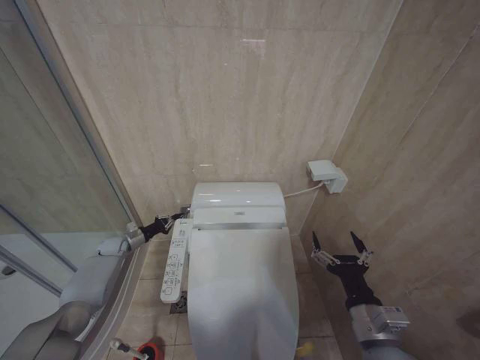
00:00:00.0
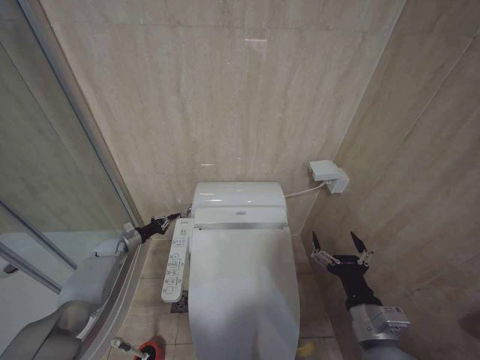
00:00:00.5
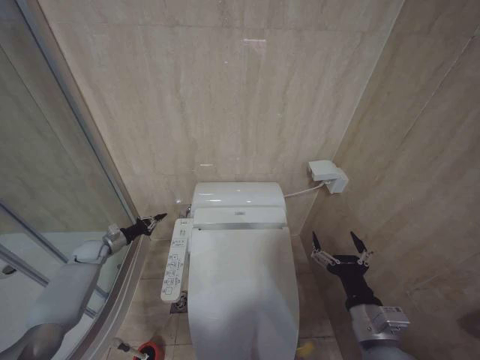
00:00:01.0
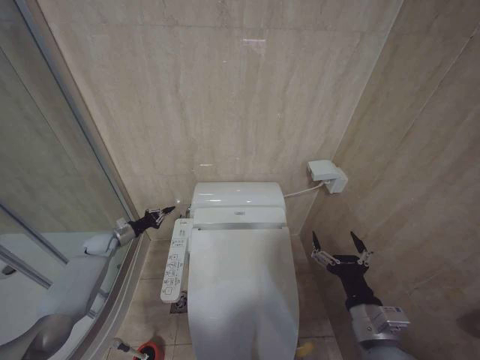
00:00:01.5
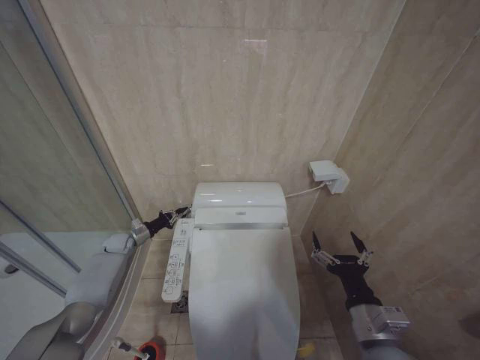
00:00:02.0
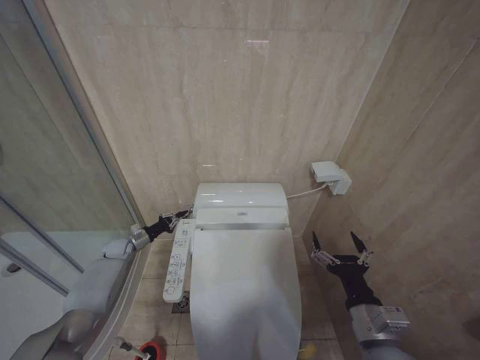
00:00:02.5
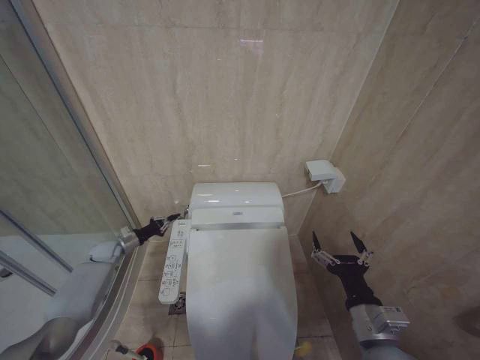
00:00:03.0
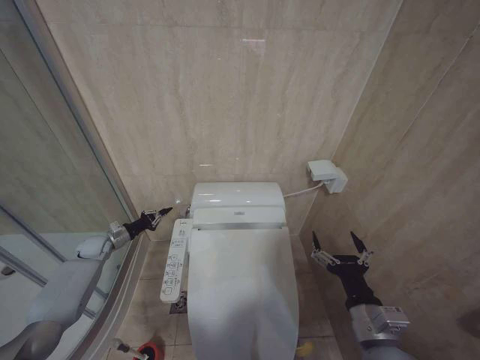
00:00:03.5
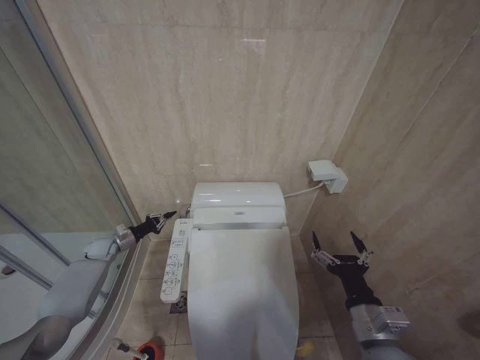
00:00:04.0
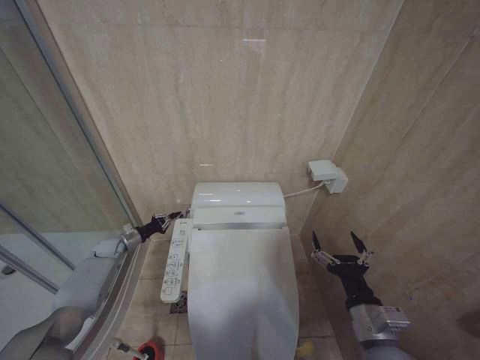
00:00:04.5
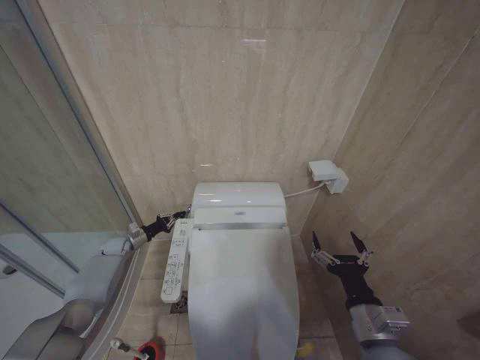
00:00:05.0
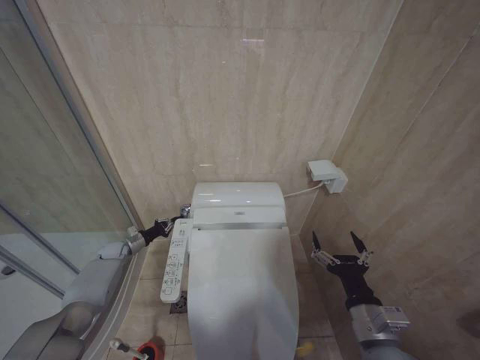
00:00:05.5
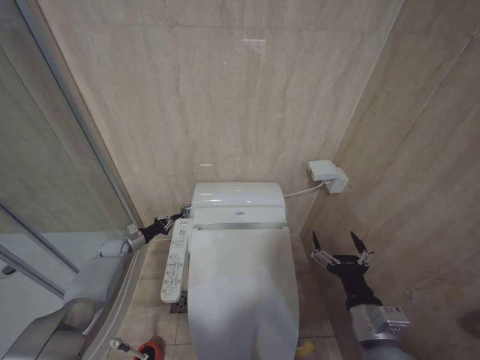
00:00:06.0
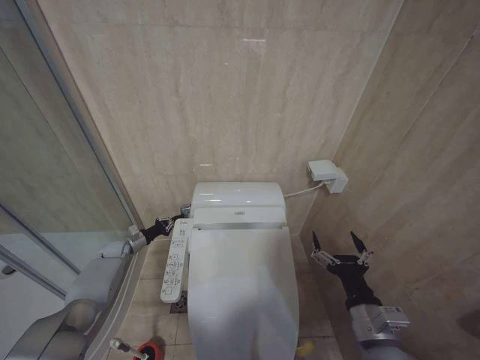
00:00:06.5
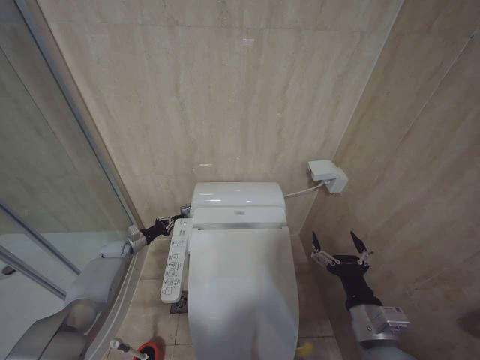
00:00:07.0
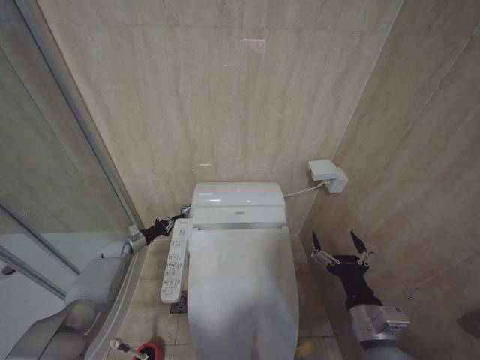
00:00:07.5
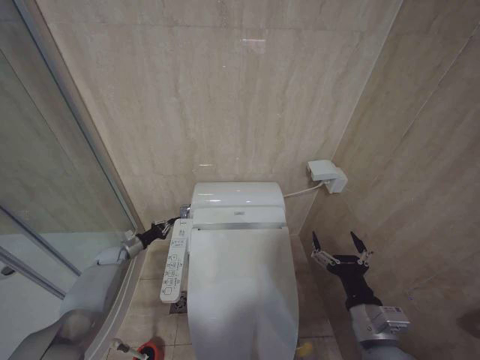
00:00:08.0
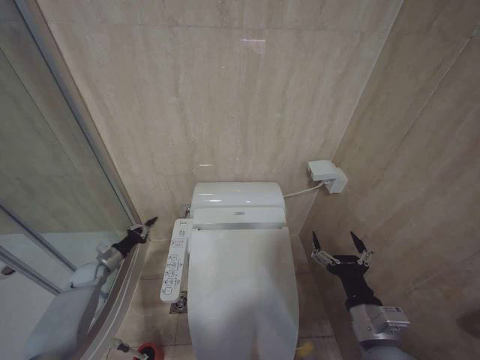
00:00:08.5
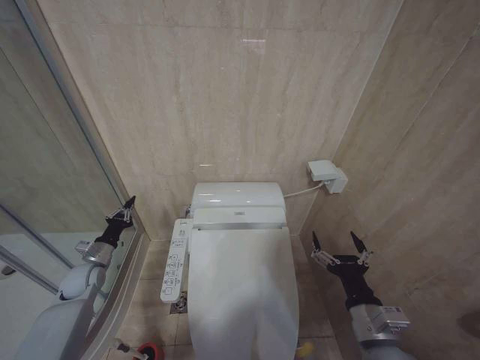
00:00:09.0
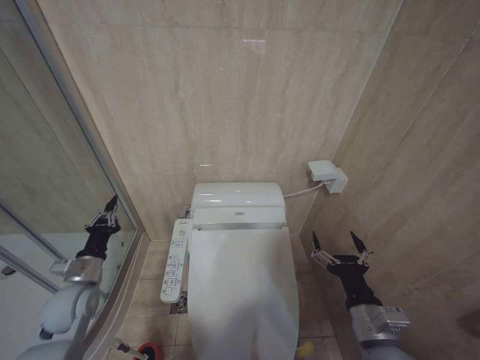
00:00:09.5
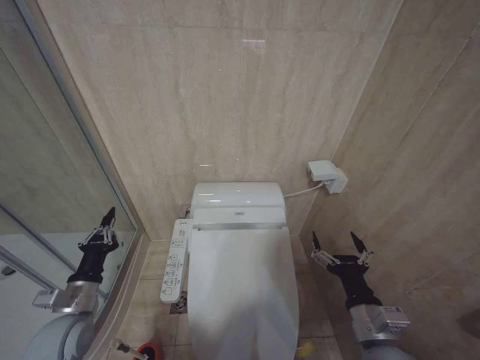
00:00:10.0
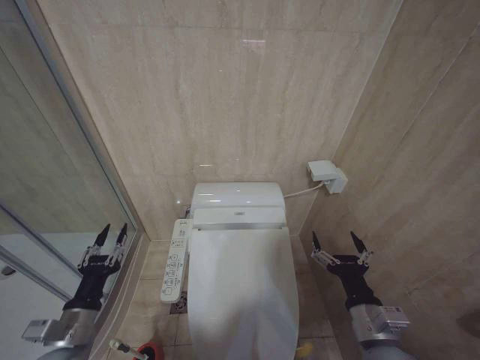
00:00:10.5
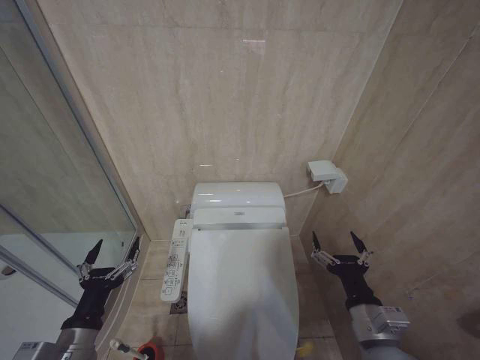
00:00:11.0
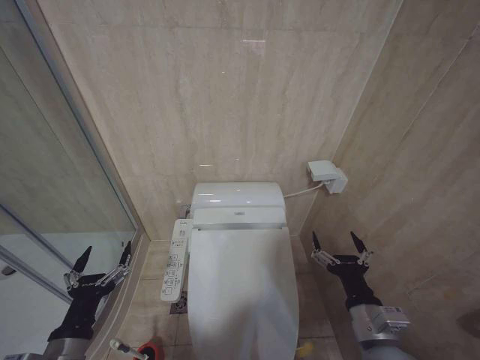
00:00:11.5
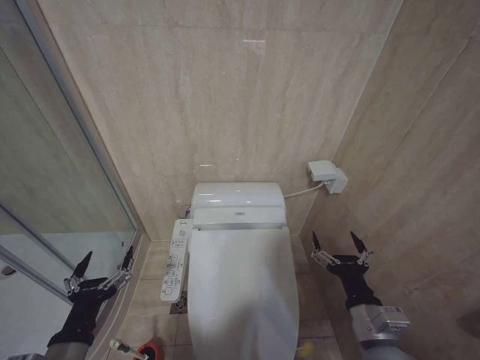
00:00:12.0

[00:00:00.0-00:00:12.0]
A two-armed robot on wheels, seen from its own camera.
Task of the whole recording: Open the toilet lid, clean the toilet bowl with a toilet brush, close the toilet lid, and flush.
00:00:02.0 to 00:00:04.0: The left gripper changes place by some 5 cm.
00:00:04.0 to 00:00:06.0: The left gripper shifts by about 5 cm.
00:00:06.0 to 00:00:08.0: The grippers make only small movements.
00:00:08.0 to 00:00:10.0: The left gripper shifts roughly 30 cm backward and upward.
00:00:10.0 to 00:00:12.0: The left gripper heads backward and to the right, covering roughly 15 cm, and opens its fingers.

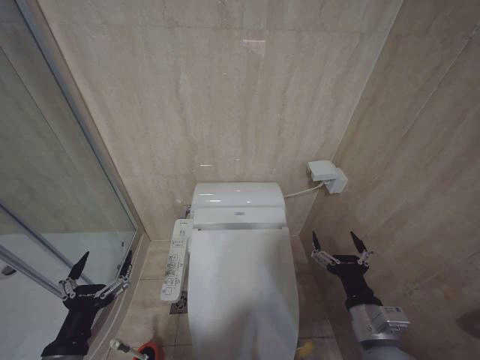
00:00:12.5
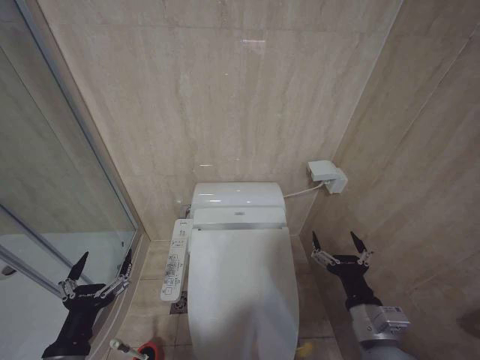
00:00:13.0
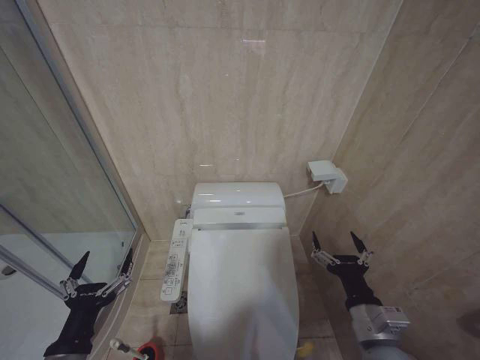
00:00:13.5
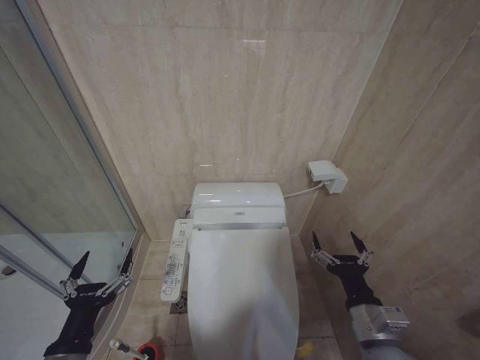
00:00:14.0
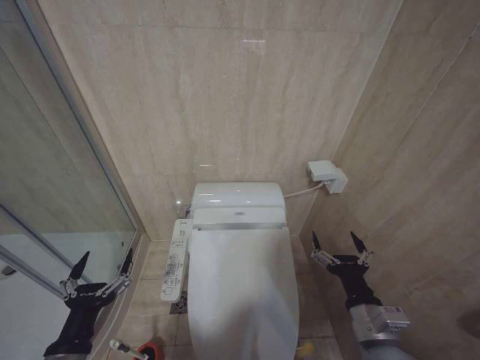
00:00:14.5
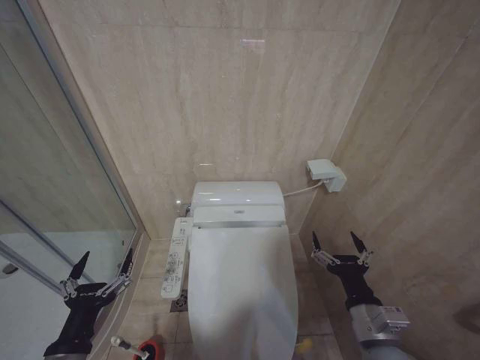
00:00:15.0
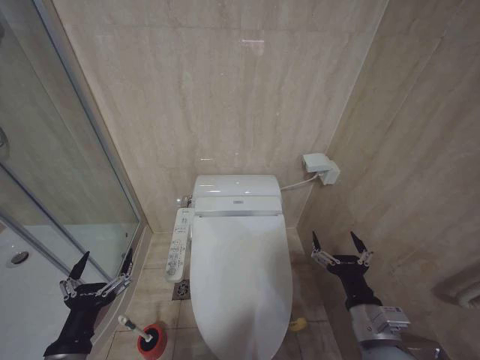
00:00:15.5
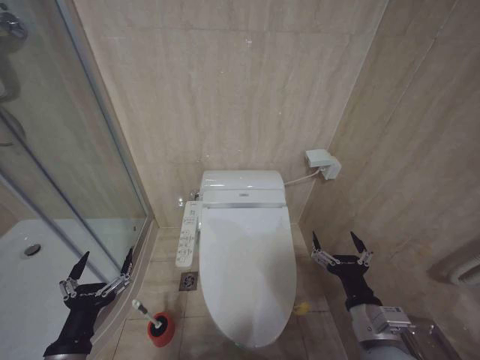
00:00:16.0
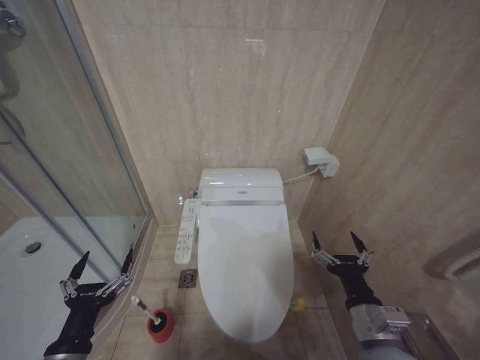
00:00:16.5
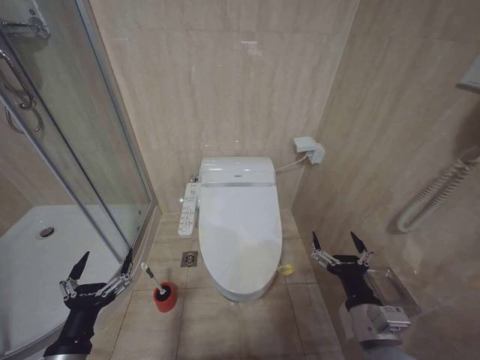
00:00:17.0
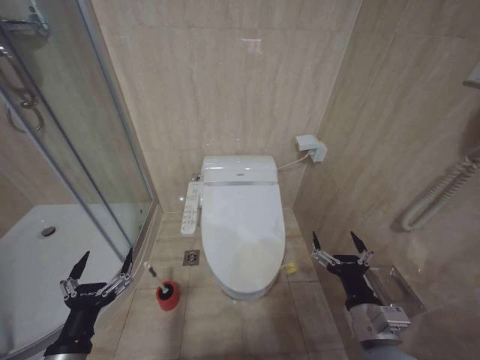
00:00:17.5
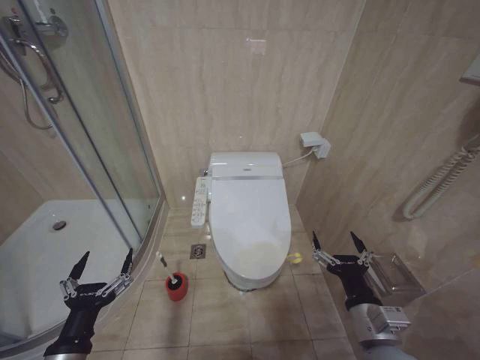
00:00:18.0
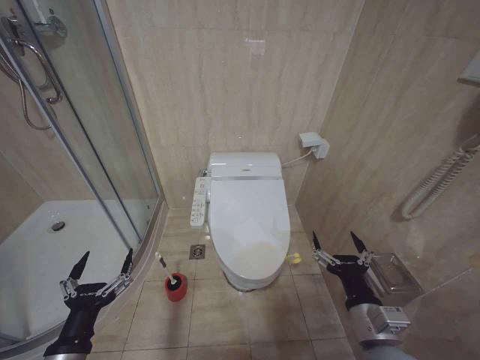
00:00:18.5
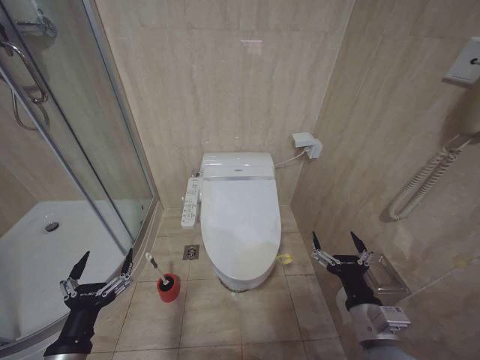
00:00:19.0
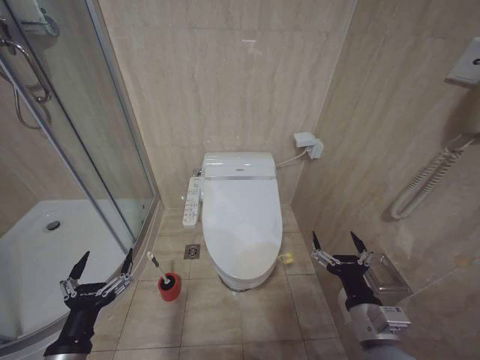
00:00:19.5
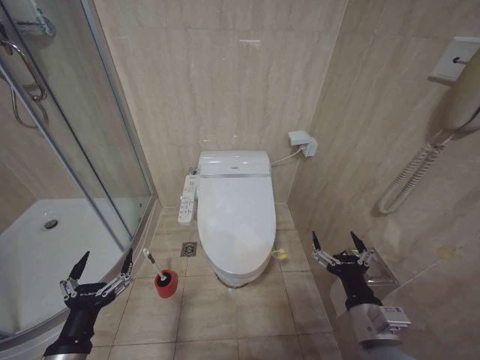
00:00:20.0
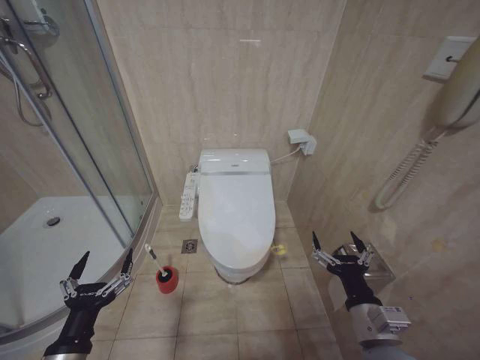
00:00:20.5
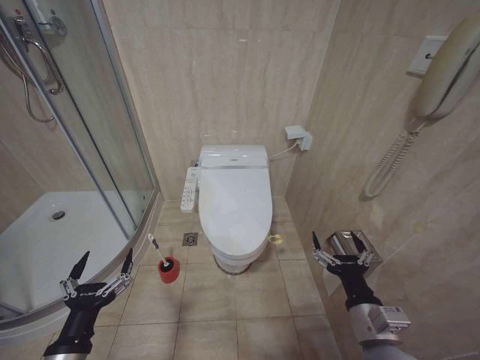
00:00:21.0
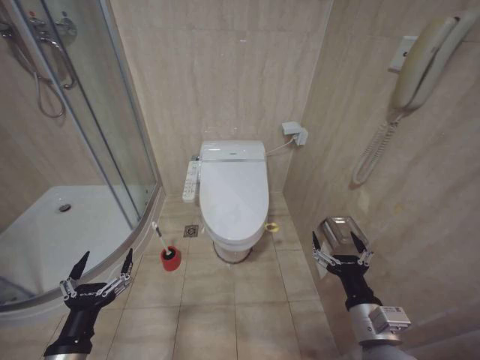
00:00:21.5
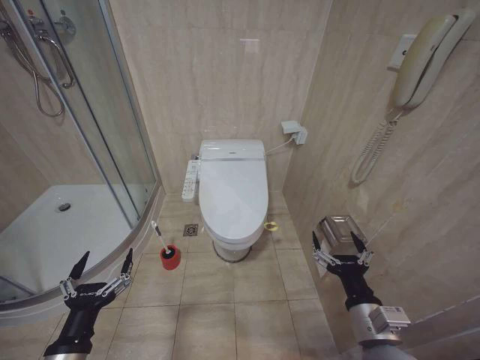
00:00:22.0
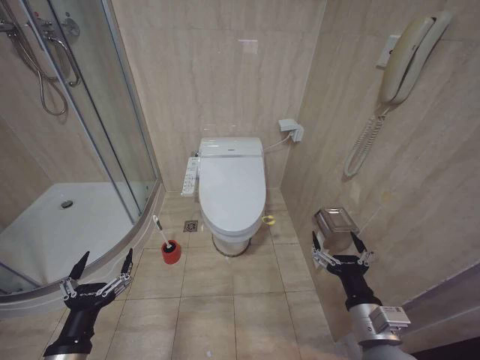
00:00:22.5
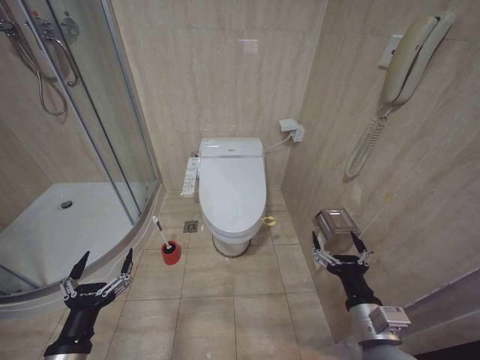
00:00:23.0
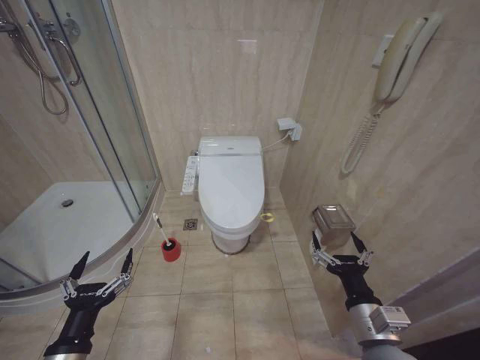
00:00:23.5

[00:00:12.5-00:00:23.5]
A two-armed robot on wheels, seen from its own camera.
Task of the whole recording: Open the toilet lid, clean the toilet bowl with a toilet brush, close the toilet lid, and flush.
00:00:12.5 to 00:00:23.5: Both grippers stay about where they are.

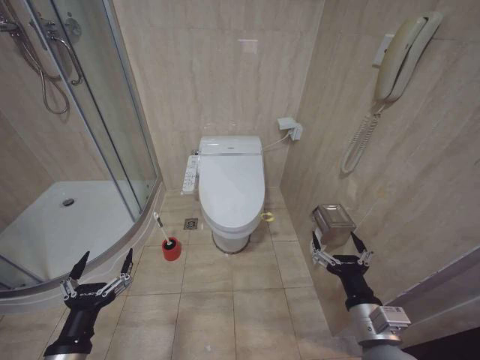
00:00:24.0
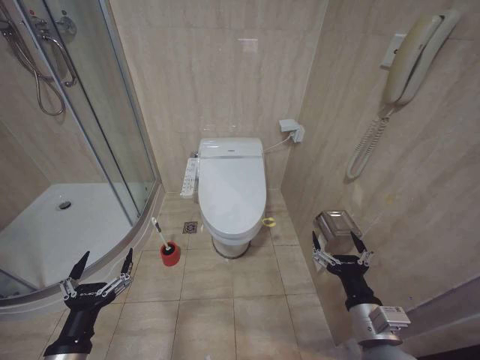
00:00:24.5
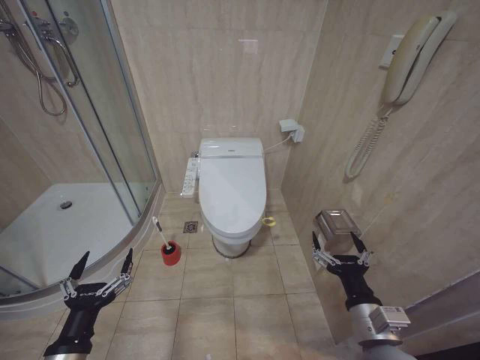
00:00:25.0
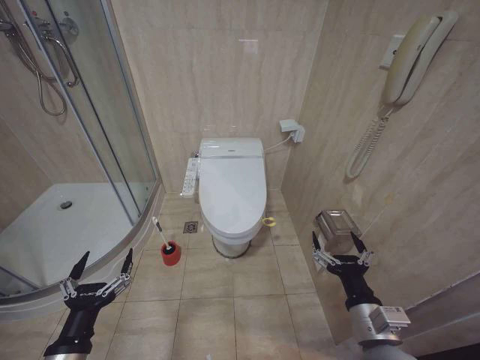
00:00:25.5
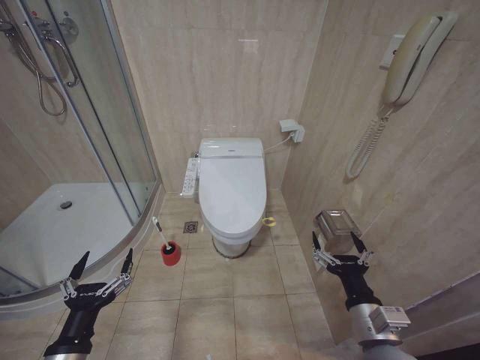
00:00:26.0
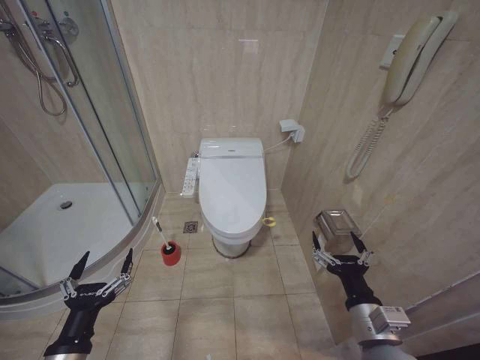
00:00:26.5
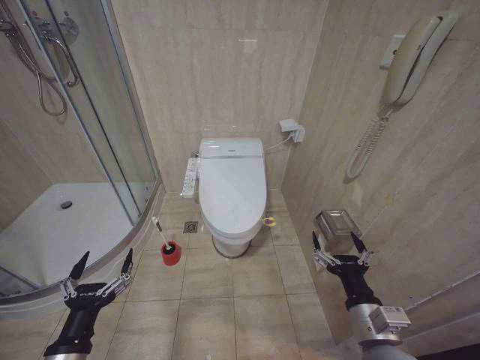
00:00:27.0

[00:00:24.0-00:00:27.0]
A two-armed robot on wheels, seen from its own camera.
Task of the whole recording: Open the toilet lid, clean the toilet bowl with a toilet brush, close the toilet lid, and flush.
00:00:24.0 to 00:00:27.0: Both grippers stay put.
